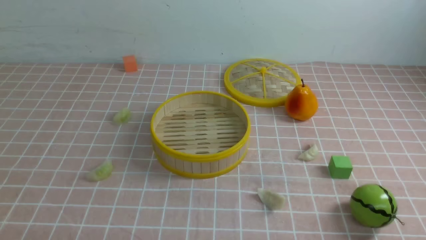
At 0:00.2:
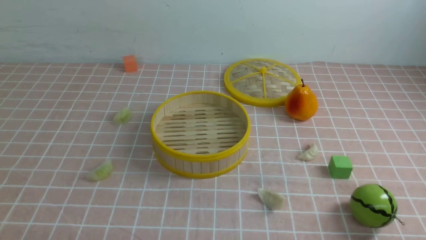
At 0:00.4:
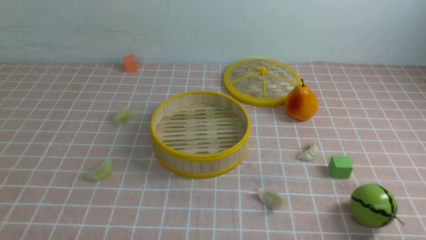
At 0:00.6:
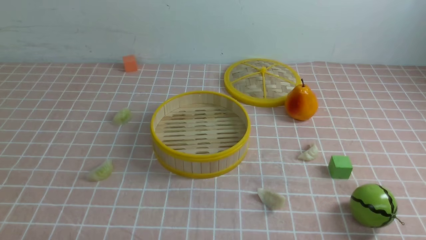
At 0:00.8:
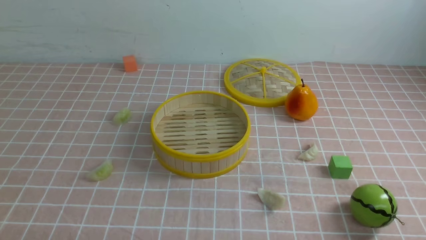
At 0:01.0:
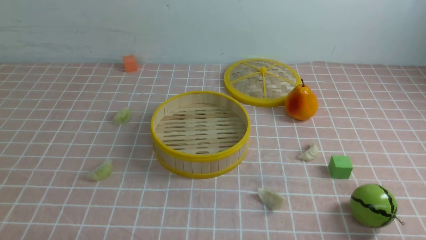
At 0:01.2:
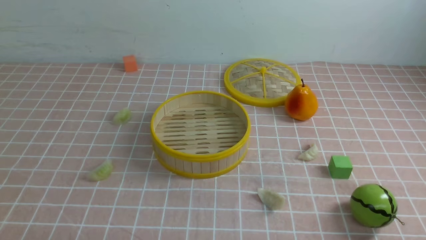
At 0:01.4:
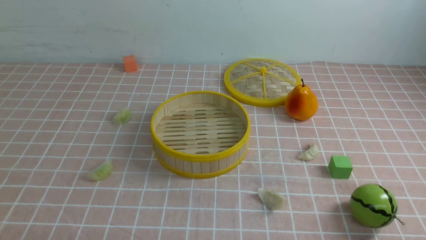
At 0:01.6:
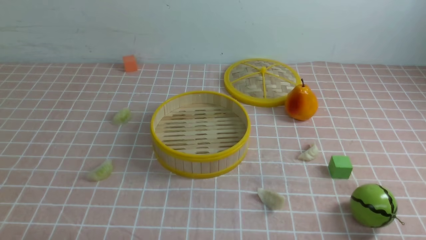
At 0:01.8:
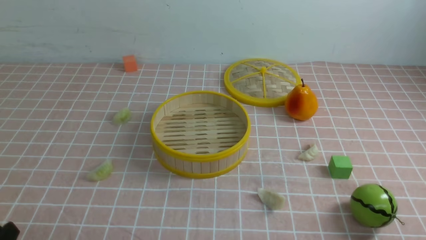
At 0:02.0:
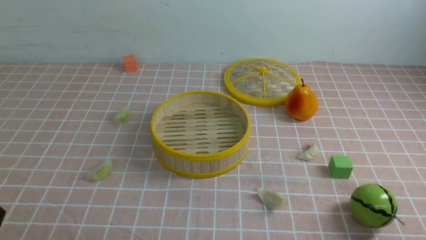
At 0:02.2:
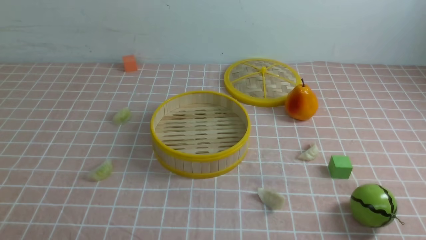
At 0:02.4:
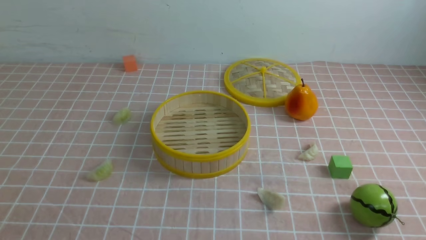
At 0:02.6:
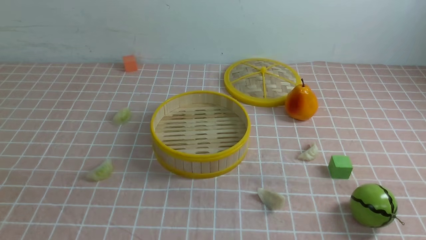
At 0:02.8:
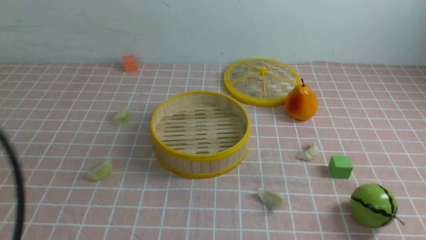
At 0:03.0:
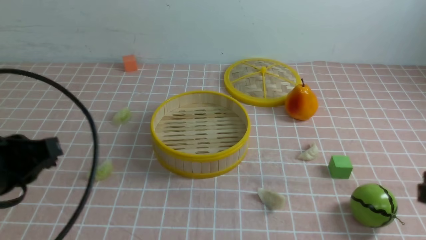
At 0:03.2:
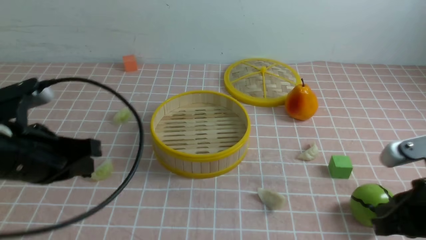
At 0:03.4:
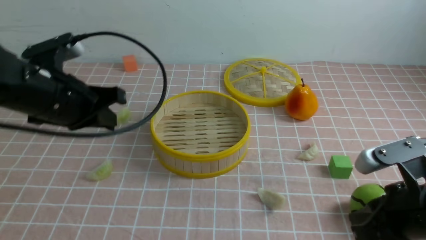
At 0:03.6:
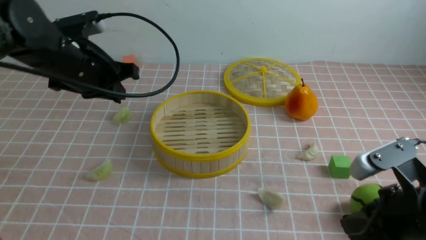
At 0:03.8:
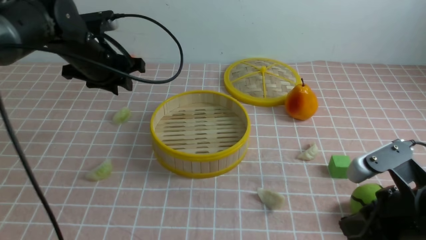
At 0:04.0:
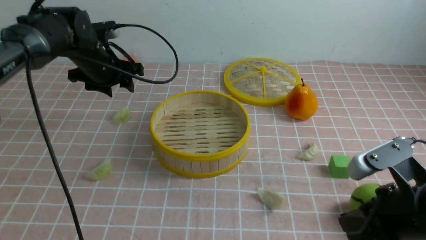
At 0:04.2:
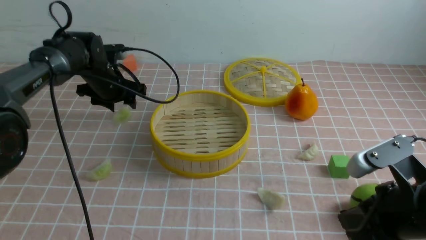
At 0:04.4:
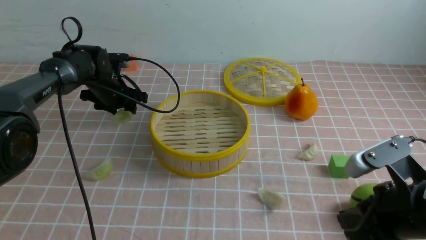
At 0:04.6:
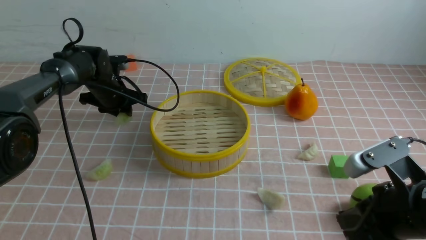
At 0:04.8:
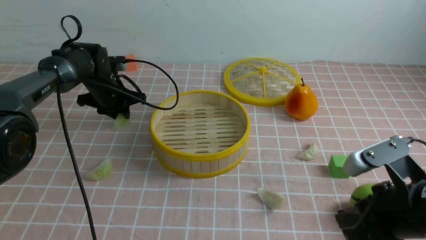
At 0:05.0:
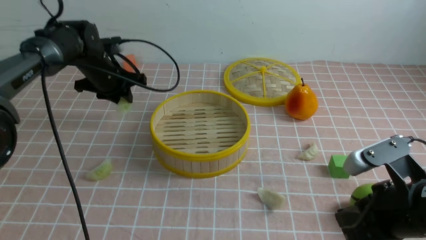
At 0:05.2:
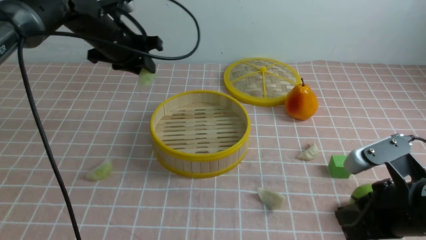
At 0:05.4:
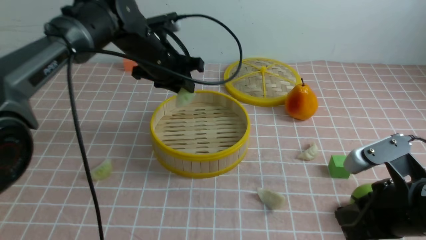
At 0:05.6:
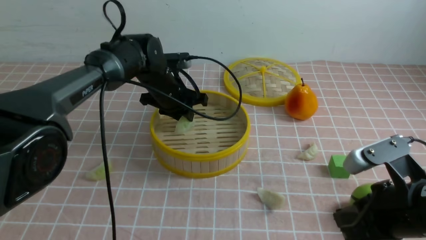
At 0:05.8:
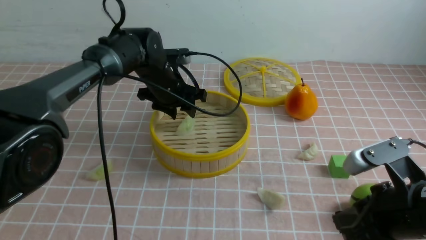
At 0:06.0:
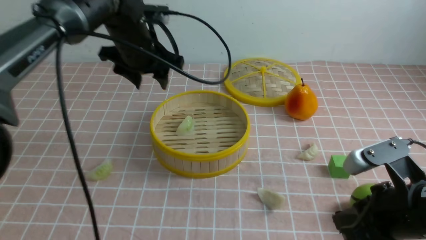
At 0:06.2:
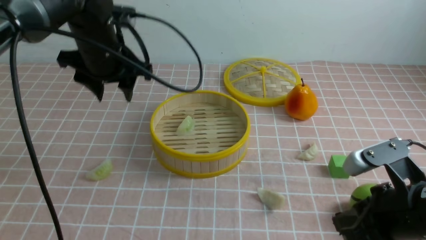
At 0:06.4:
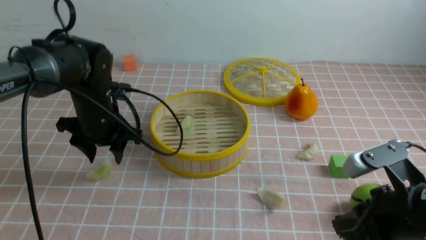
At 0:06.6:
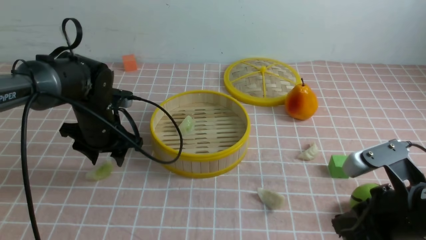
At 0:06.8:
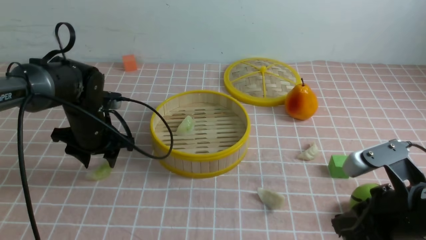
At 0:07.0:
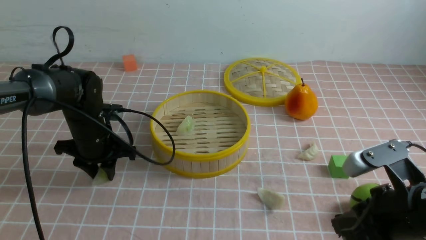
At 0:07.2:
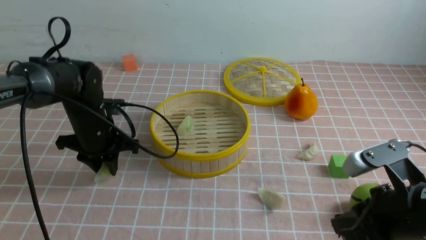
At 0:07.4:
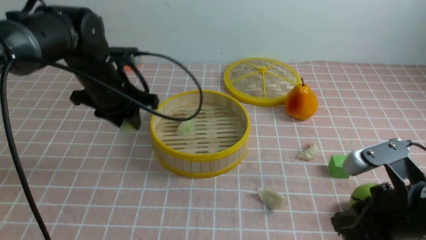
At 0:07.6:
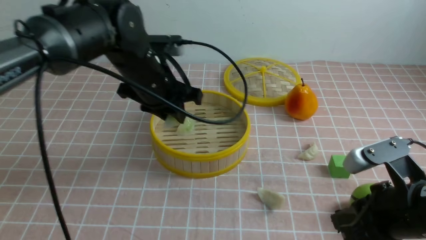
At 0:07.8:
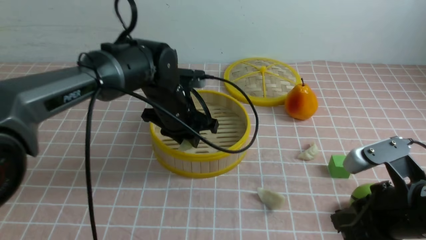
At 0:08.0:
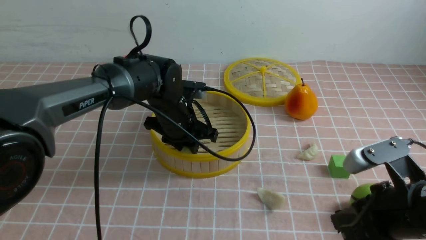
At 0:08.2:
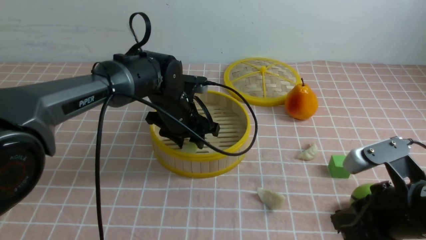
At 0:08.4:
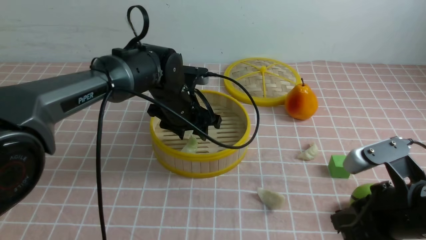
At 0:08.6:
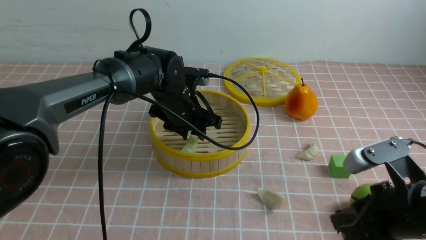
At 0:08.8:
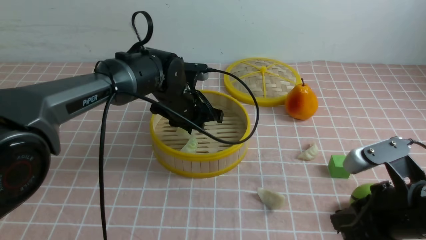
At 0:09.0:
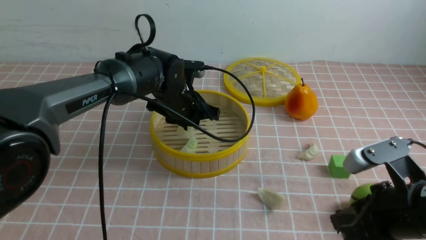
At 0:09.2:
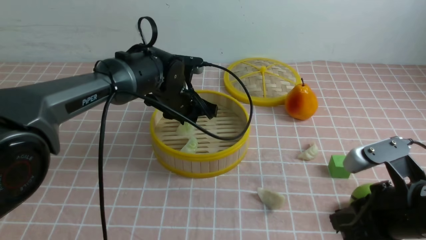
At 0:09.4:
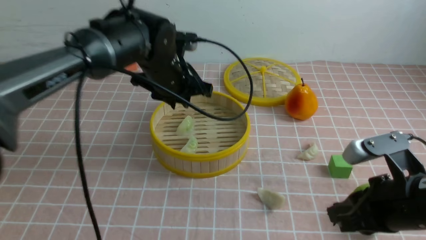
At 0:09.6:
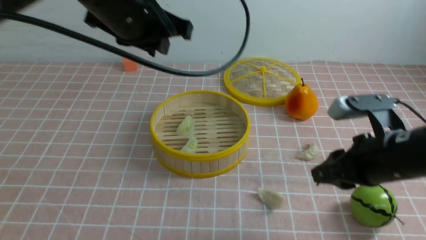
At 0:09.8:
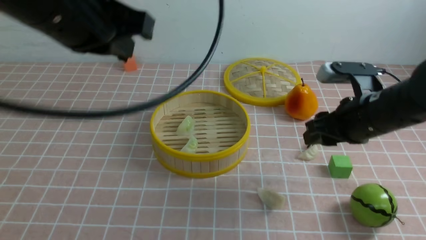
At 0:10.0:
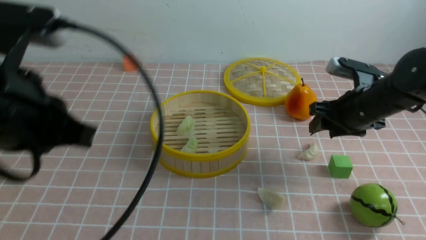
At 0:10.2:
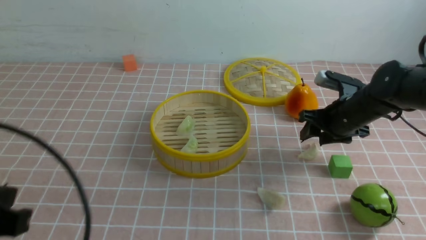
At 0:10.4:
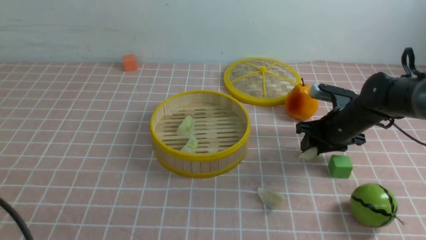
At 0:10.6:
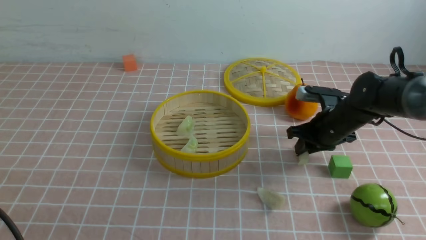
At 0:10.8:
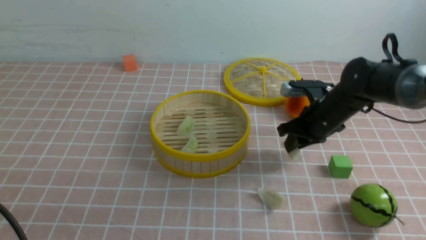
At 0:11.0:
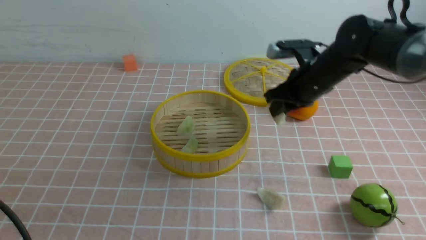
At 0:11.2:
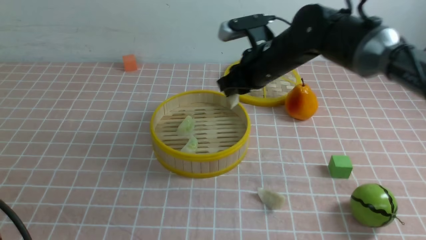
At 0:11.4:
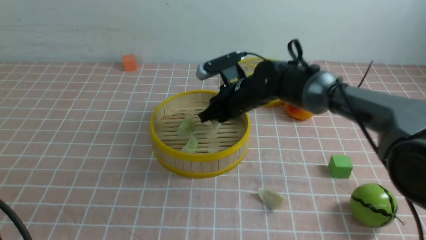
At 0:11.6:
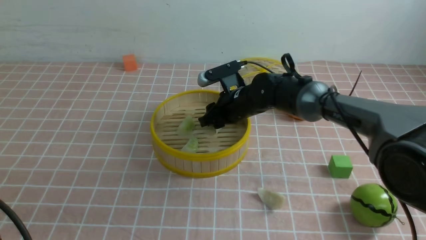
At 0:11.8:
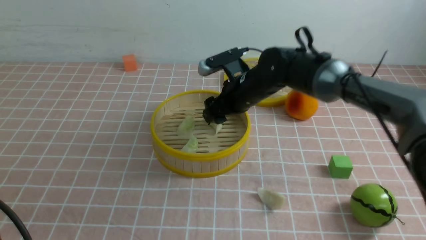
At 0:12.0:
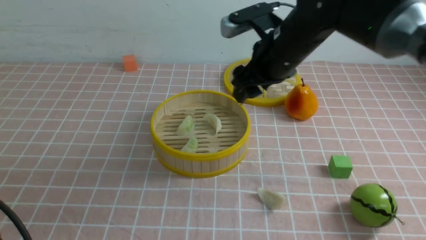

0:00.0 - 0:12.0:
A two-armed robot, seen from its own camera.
Task of the whole recording: put the dumplings into the steamer on the table with the pink tablecloth.
Step, 0:00.0 - 0:04.8: use the left arm to grab a dumpling.
Step, 0:05.2 - 0:05.6: use the left arm to put the dumpling into the steamer.
Step, 0:06.0 - 0:07.0: use the left arm to grab a dumpling.
Step, 0:07.2 - 0:09.4: use the left arm to put the dumpling into the steamer.
Step, 0:09.6 - 0:10.8: use the right arm to grab a dumpling.
Step, 0:11.0 - 0:11.8: use the right arm to put the dumpling into the steamer.
0:01.6 - 0:03.0: The left gripper moves upward and forward, some 20 cm, and closes up.
0:03.0 - 0:04.4: The left gripper goes some 35 cm forward, and opens up. The right gripper goes about 5 cm to the left.
0:04.4 - 0:06.0: The left gripper moves up and down over roughly 15 cm, changing direction 2 times, and closes, then opens again.
0:06.0 - 0:07.6: The left gripper reaches about 10 cm downward, then returns, and closes up.
0:07.6 - 0:09.0: The left gripper ends up some 5 cm from where it was, and opens, then closes once more.
0:09.0 - 0:10.4: The right gripper is displaced forward by about 25 cm, and opens; the left gripper is displaced backward and to the left by approximately 40 cm, and closes up.
0:10.4 - 0:12.0: The right gripper shifts roughly 20 cm to the left and upward, and opens up.

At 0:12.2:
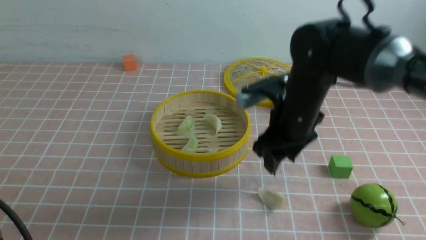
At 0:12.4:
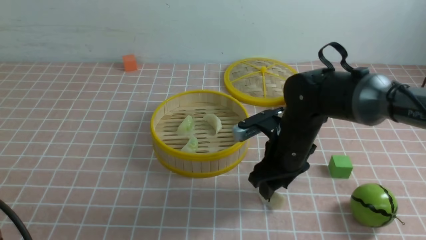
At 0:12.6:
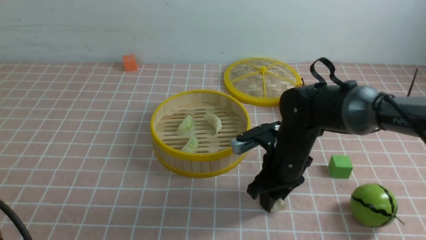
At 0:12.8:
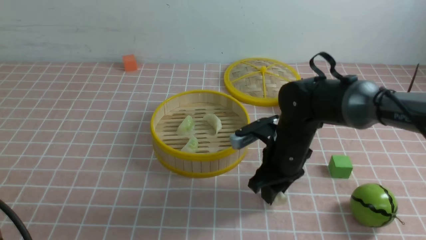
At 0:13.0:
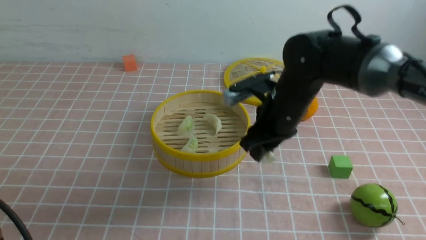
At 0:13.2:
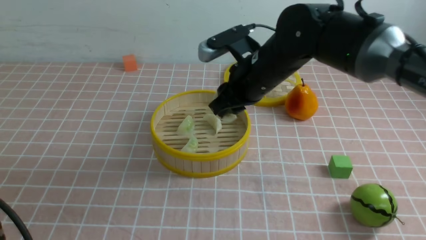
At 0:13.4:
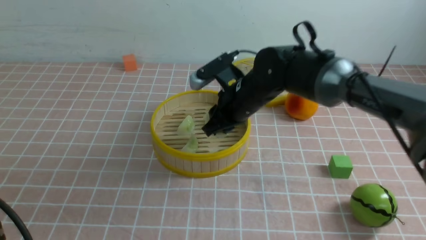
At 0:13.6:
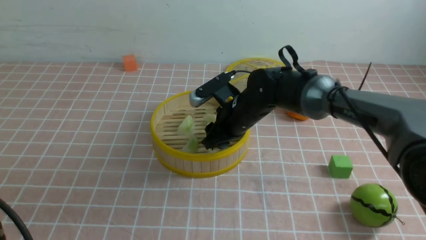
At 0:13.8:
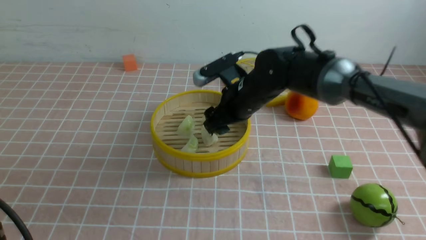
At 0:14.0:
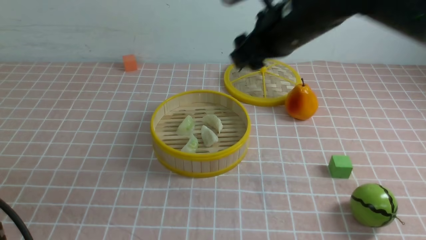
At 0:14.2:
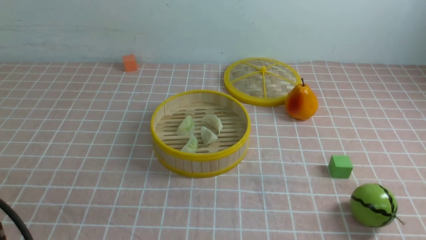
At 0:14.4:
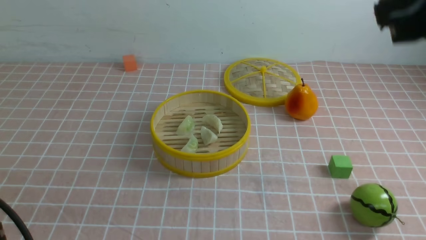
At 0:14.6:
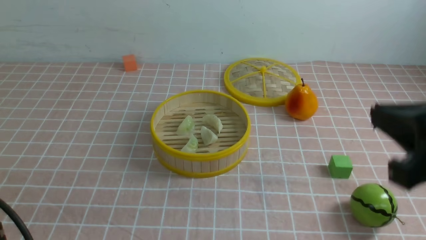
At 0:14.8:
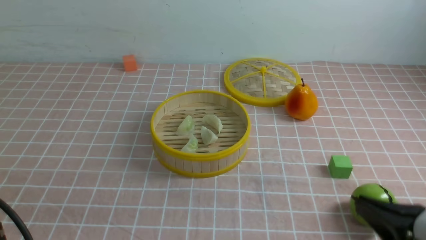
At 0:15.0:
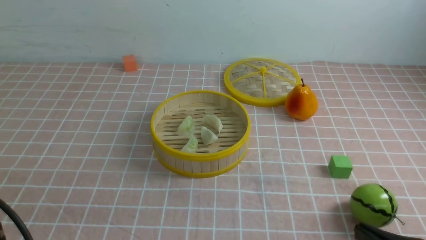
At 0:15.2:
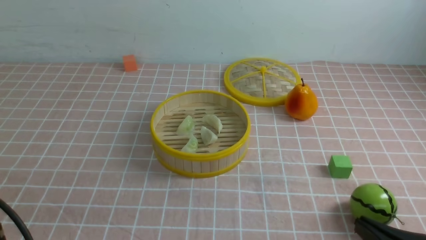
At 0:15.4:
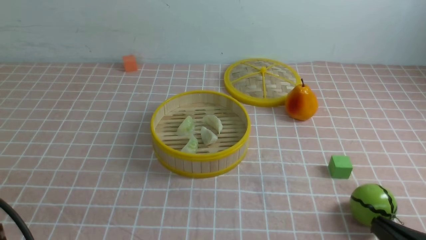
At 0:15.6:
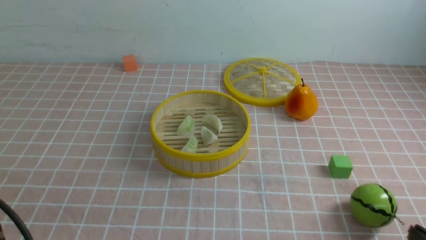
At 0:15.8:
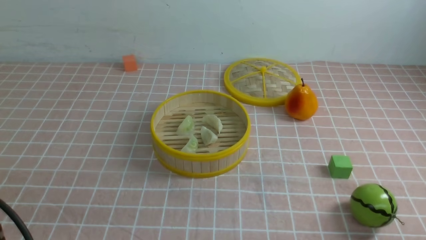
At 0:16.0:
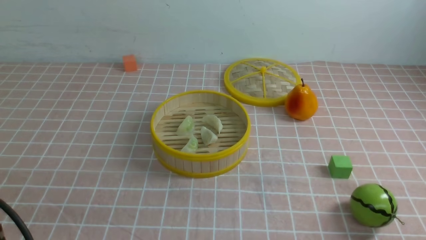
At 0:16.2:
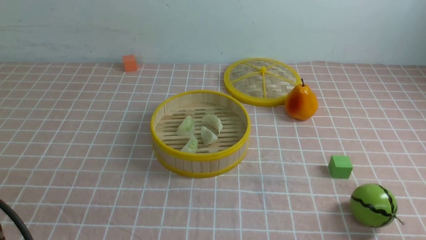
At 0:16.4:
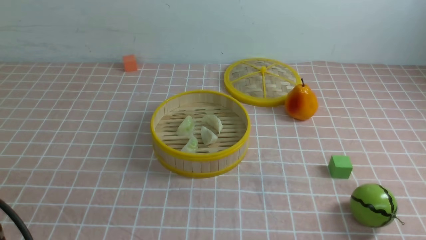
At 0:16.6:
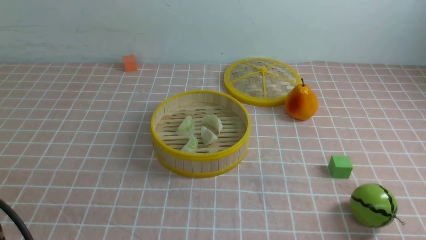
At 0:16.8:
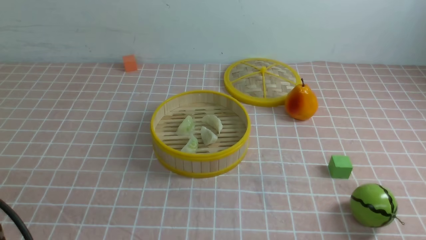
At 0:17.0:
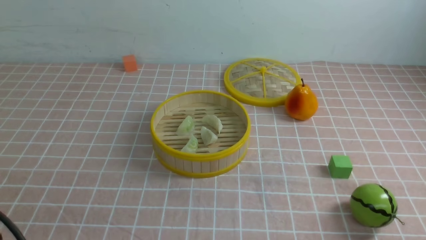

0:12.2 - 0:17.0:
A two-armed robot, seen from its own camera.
Task of the whole recording: put the dumplings into the steamer on the table with the pink tablecloth.
Step, 0:12.2 - 0:12.8: use the right arm to grab a dumpling.
Step, 0:13.0 - 0:13.8: use the right arm to put the dumpling into the steamer.
0:12.2 - 0:13.8: The right gripper goes up and down, roughly 10 cm each way, reversing 3 times, and closes and opens again.
0:13.8 - 0:15.4: The right gripper is displaced backward and to the right by some 40 cm, and closes up.
0:15.4 - 0:17.0: The right gripper changes place by roughly 5 cm.
